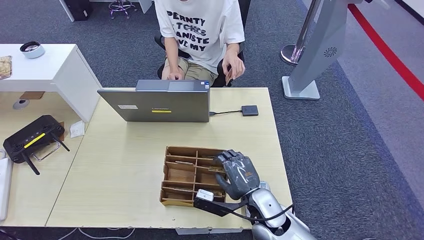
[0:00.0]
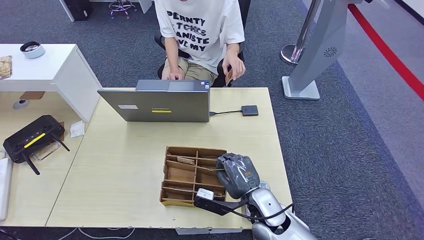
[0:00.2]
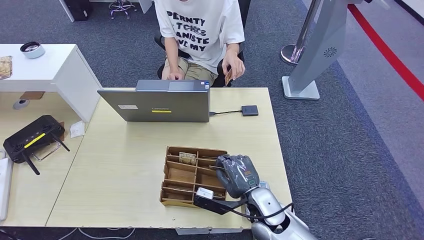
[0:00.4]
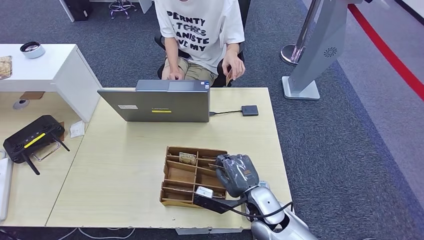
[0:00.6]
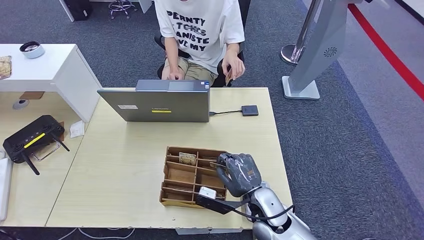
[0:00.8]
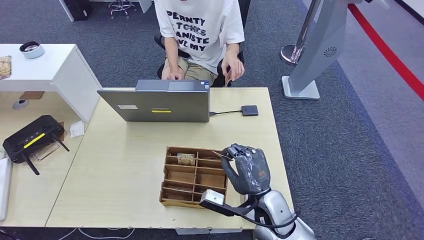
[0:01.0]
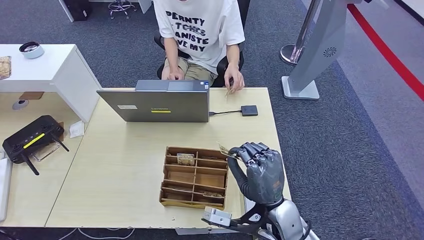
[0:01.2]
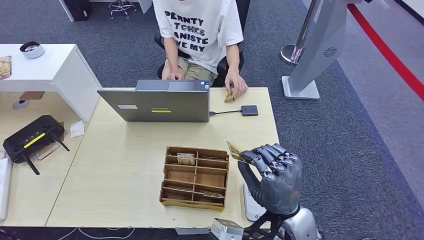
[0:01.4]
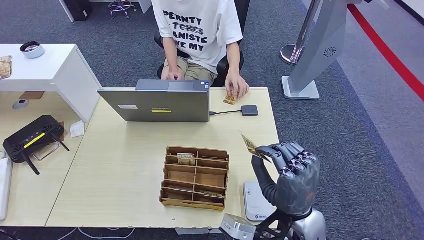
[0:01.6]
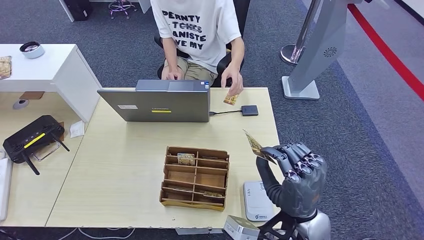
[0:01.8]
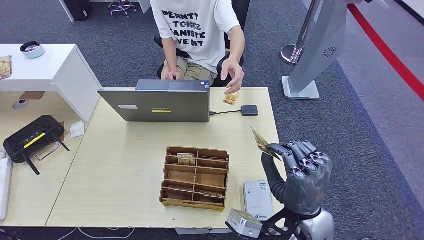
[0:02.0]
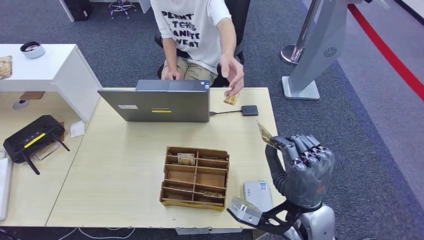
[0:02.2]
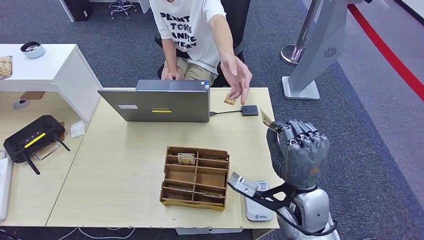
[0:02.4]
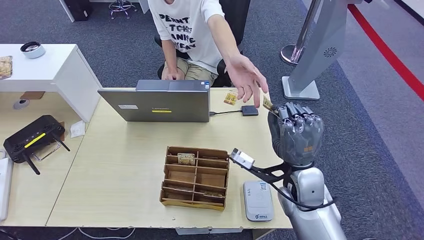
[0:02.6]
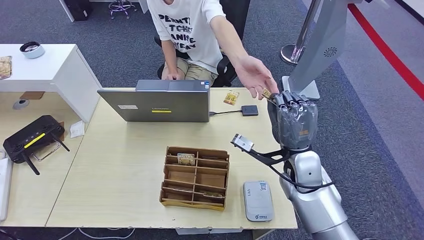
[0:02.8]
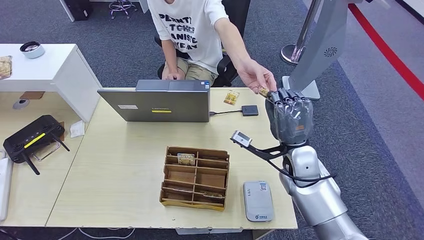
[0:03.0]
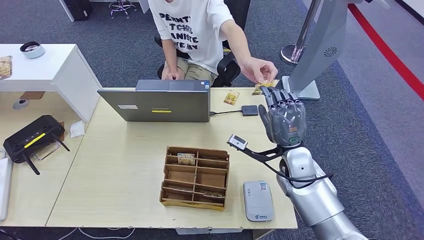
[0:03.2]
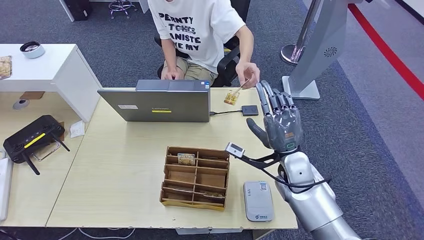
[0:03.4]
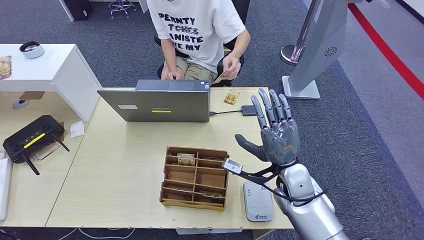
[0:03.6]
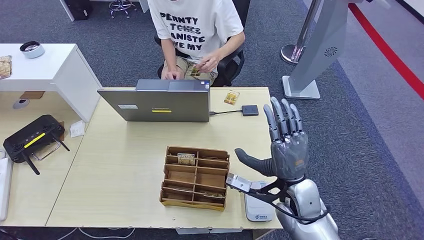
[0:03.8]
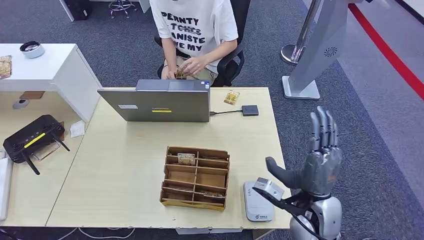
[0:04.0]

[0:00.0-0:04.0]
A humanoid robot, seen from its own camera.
Step, 0:01.4 to 0:03.8: Hand the room key to the person.
0:00.0 to 0:01.4: The right hand heads upward, covering approximately 10 cm.
0:01.4 to 0:02.6: The right hand travels forward by some 10 cm.
0:02.6 to 0:04.0: The right hand travels backward by about 5 cm.

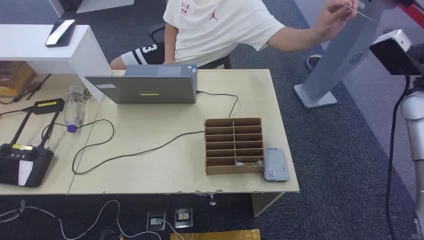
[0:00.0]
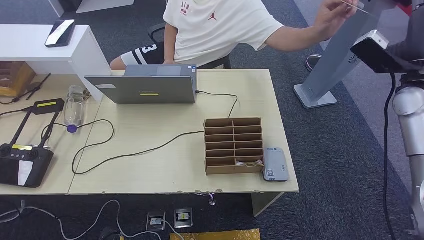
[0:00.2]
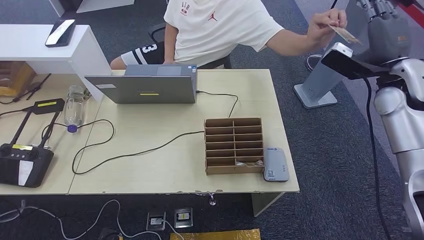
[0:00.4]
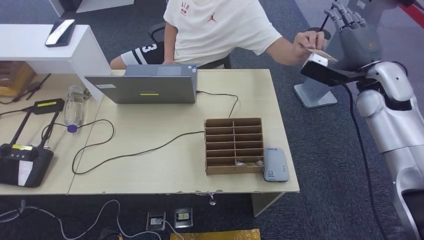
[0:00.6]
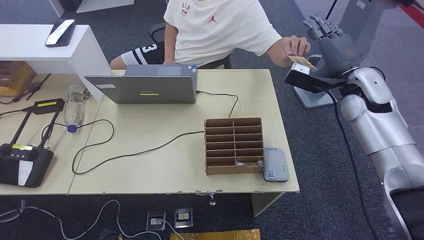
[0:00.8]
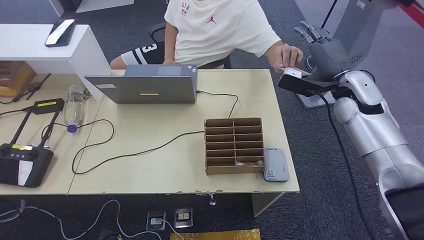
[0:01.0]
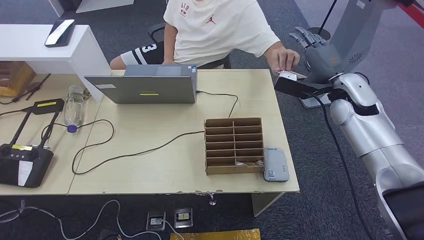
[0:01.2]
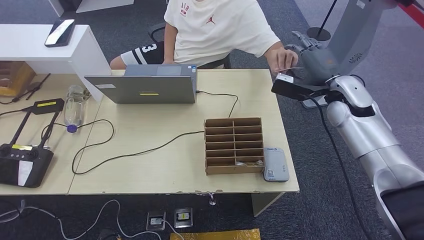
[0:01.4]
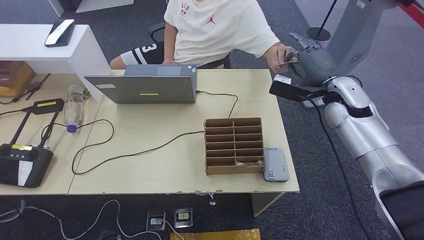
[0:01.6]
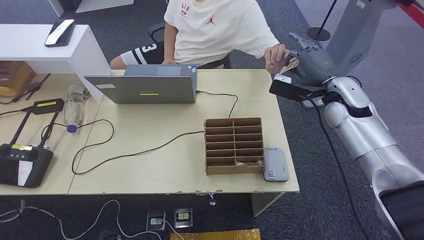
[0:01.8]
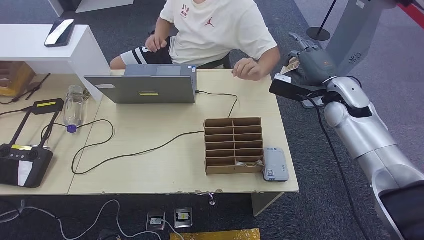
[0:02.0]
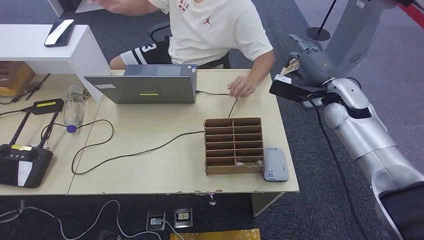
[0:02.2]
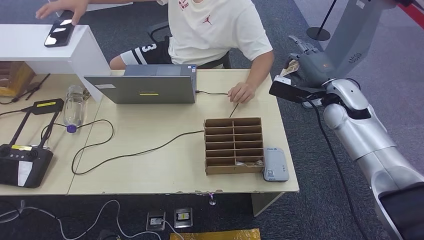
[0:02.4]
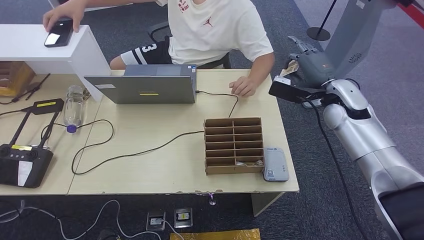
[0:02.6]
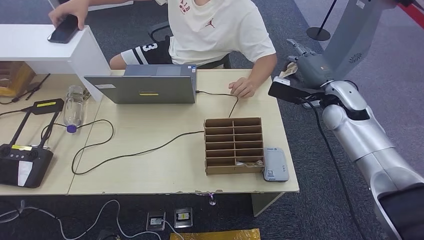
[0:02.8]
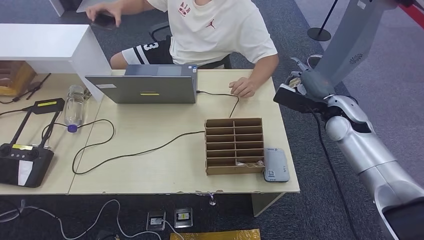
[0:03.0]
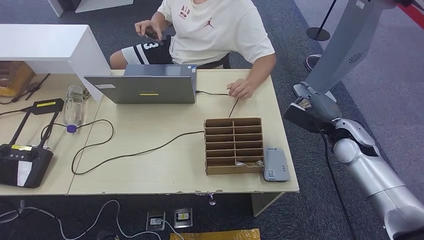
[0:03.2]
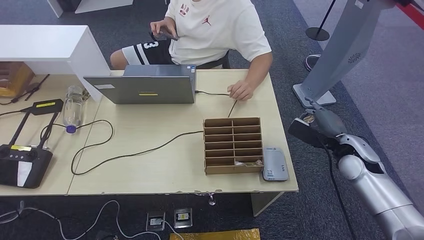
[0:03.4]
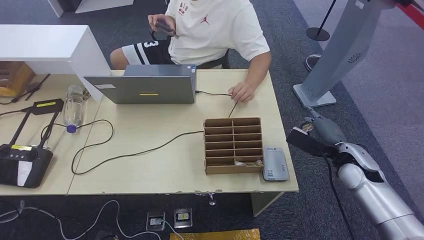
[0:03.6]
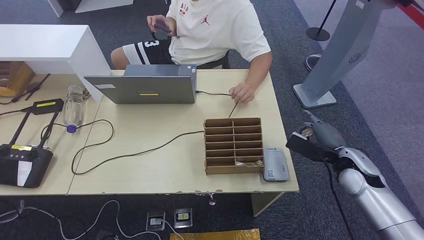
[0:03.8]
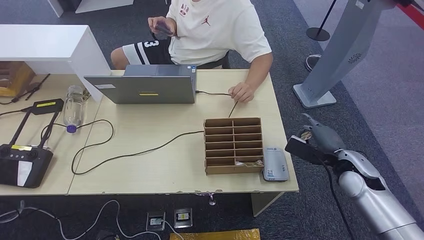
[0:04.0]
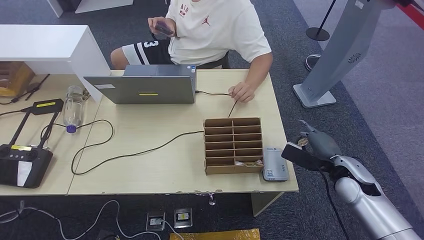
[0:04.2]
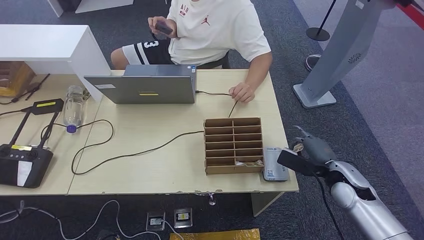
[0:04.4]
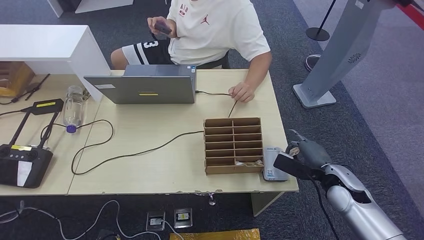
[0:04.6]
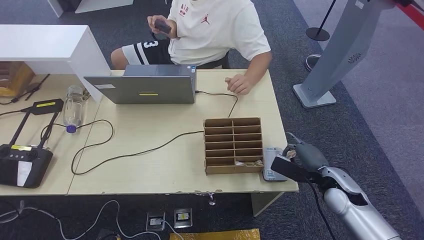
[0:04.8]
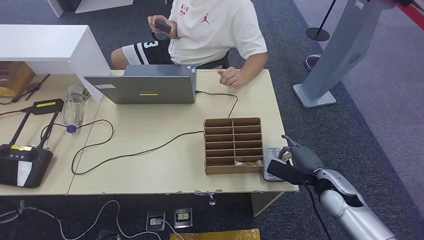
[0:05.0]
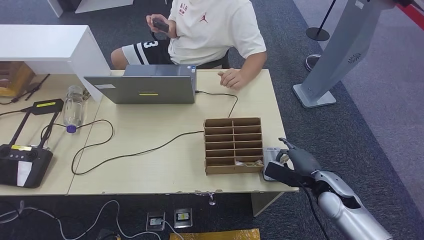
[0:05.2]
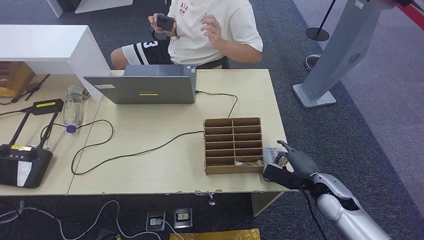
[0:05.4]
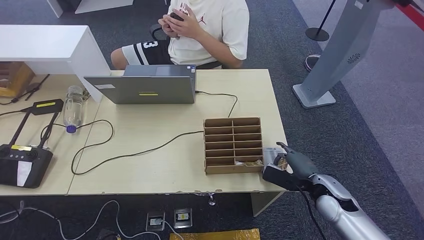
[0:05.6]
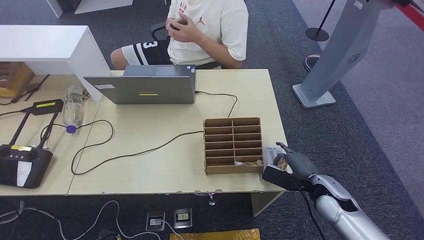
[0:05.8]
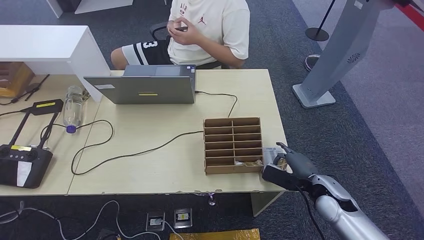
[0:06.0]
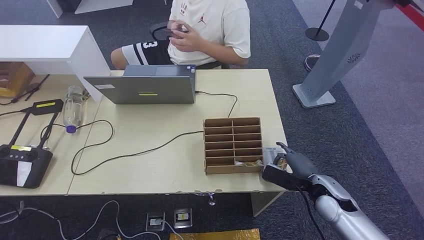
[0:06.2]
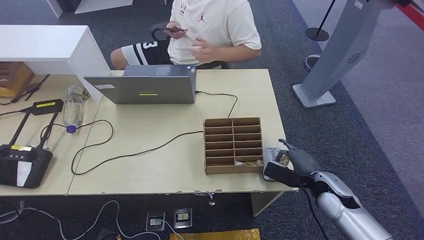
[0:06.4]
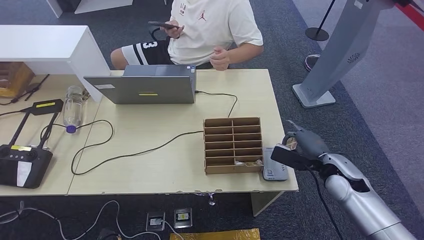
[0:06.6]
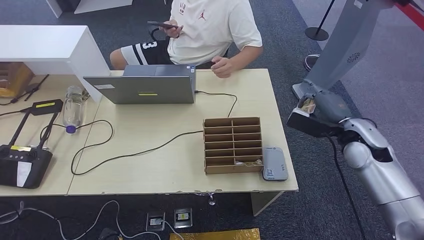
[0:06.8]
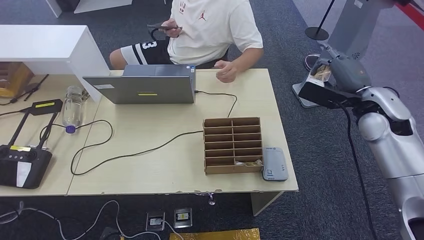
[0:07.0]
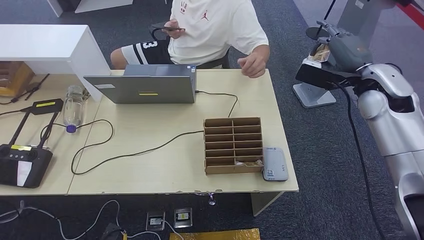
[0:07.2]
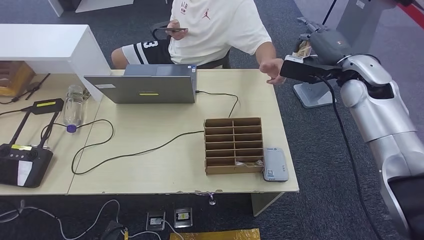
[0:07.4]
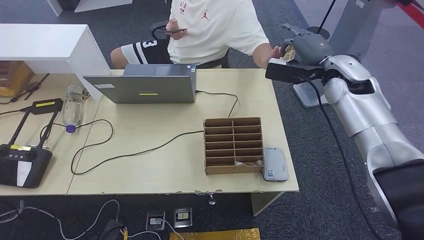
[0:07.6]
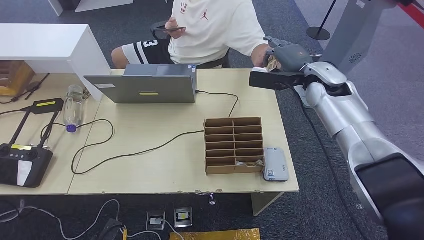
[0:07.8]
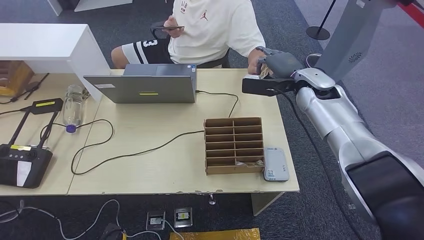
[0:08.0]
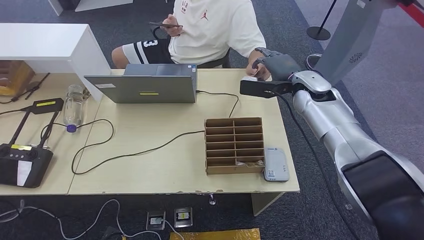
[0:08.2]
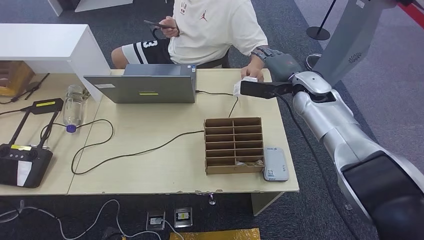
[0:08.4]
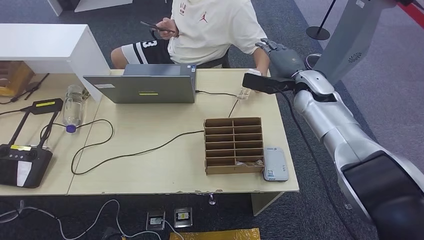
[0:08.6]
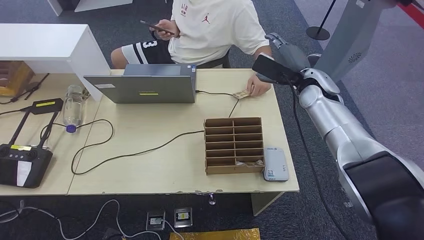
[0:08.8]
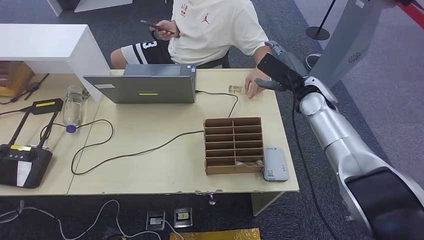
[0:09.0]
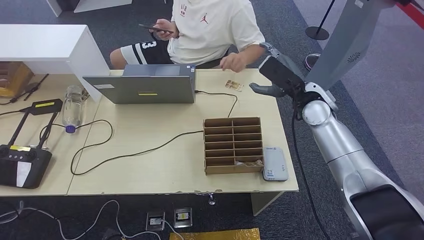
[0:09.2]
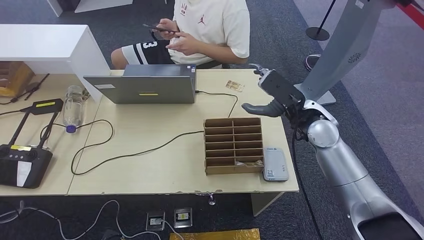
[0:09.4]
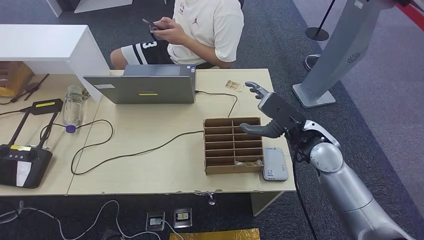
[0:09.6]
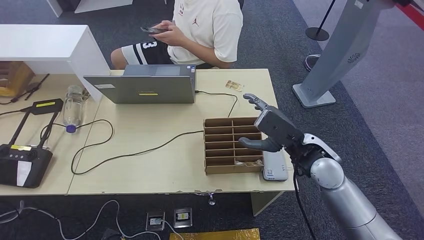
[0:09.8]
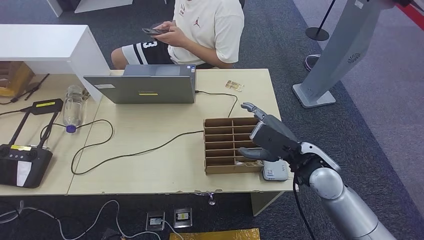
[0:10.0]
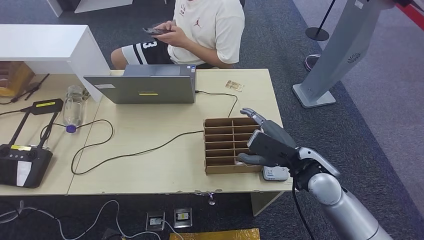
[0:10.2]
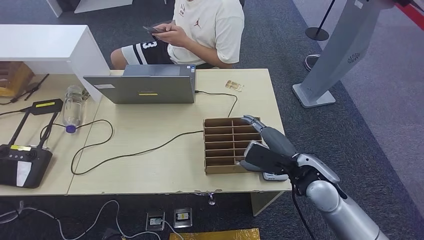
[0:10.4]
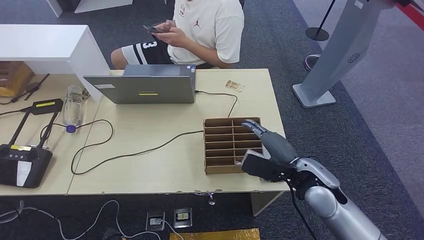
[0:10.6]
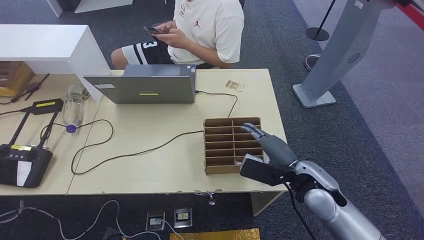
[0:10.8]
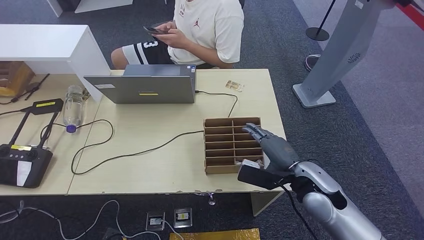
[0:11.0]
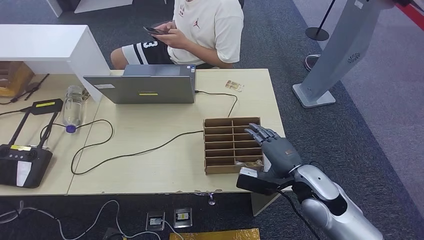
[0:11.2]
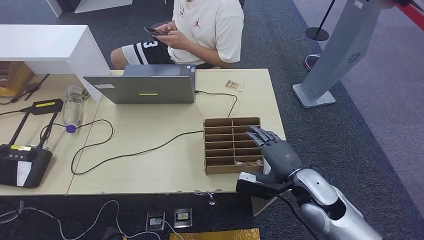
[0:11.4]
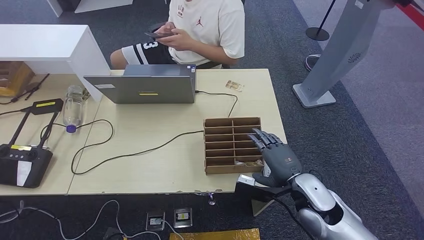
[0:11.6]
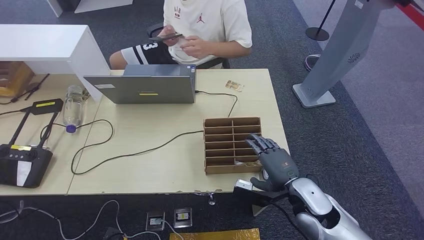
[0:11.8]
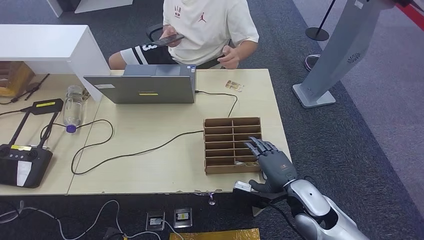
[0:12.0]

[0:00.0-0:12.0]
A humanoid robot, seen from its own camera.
Step, 0:00.0 to 0:02.2: Take the ID card from the person's hand.
Step, 0:04.2 to 0:06.4: Place the ID card on the card reader.
Step, 0:06.8 to 0:08.4: Hand the ID card to the person.
0:01.6 to 0:03.0: There are only small adjustments of the hands.
0:03.0 to 0:04.4: The right hand moves downward and backward, some 15 cm.
0:04.4 to 0:06.0: The right hand shifts by some 5 cm.
0:06.0 to 0:07.6: The right hand is displaced upward and forward by some 30 cm.
0:07.6 to 0:09.0: The right hand heads downward, covering some 5 cm.
0:09.0 to 0:10.4: The right hand goes roughly 15 cm backward.
0:10.4 to 0:12.0: The right hand shifts some 5 cm downward.

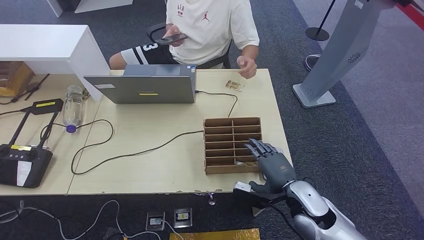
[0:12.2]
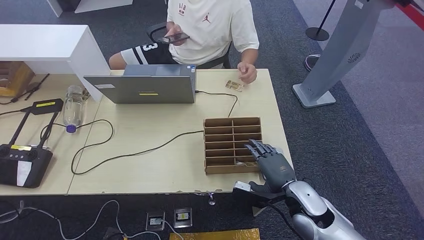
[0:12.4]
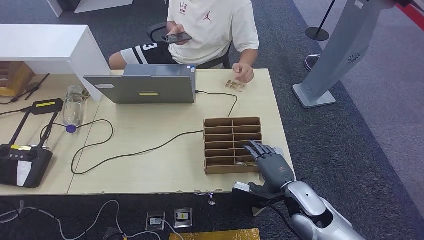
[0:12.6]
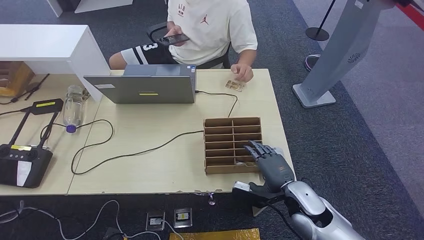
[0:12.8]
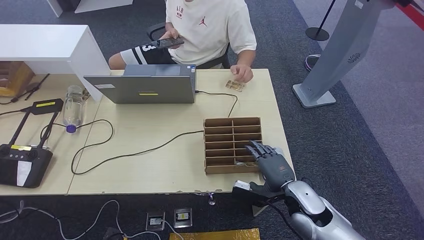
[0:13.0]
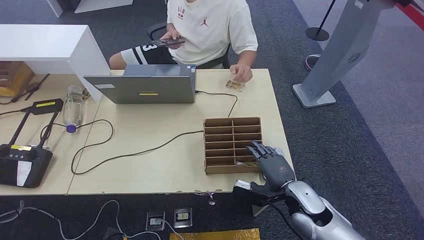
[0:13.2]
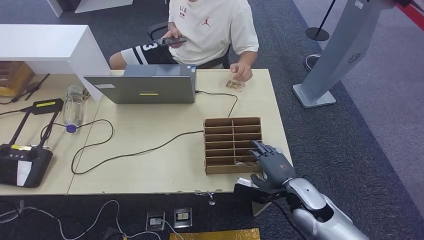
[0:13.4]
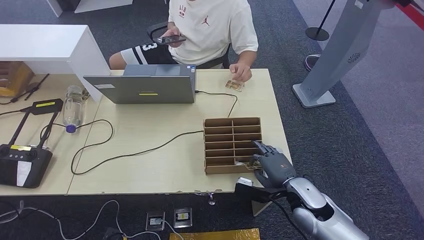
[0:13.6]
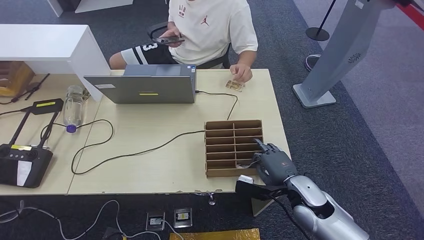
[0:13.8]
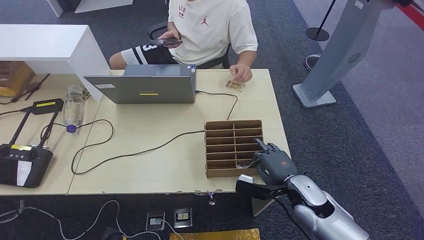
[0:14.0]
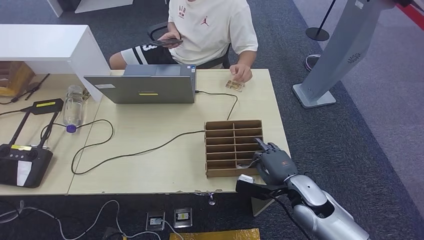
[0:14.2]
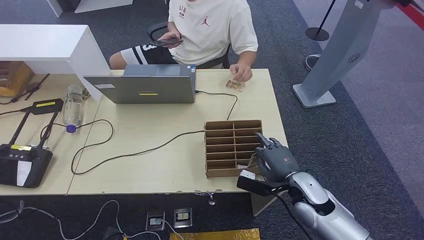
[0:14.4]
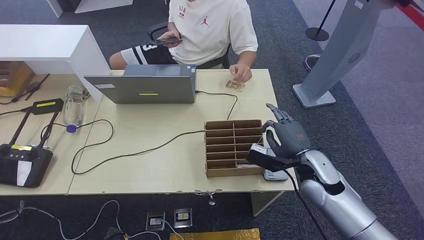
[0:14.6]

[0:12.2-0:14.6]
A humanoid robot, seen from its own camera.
0:12.2 to 0:13.4: There are only small adjustments of the hands.
0:13.4 to 0:14.6: The right hand changes place by some 5 cm.
